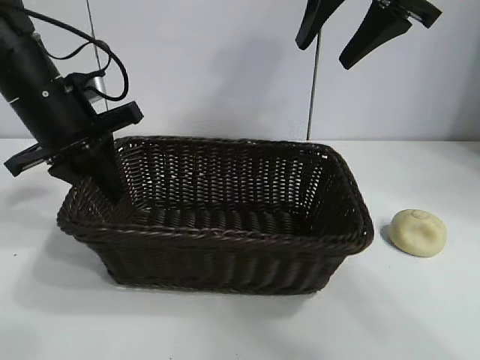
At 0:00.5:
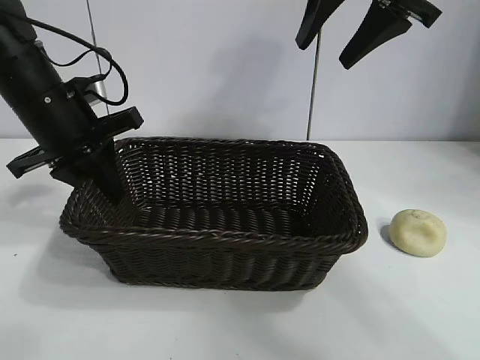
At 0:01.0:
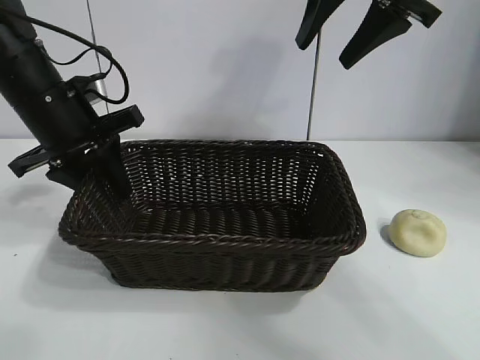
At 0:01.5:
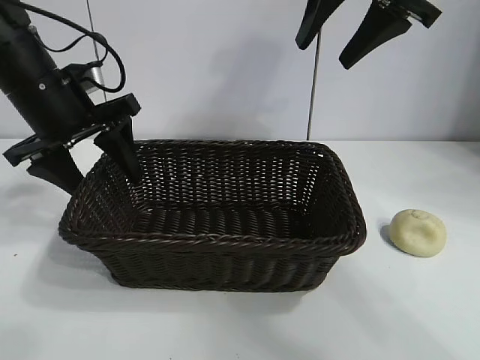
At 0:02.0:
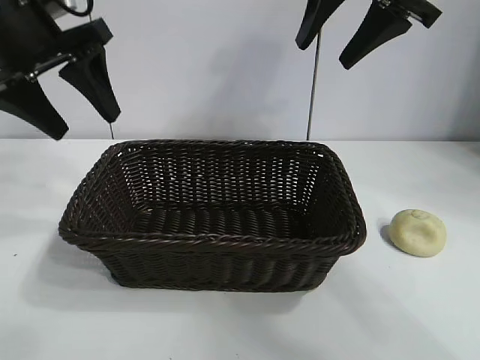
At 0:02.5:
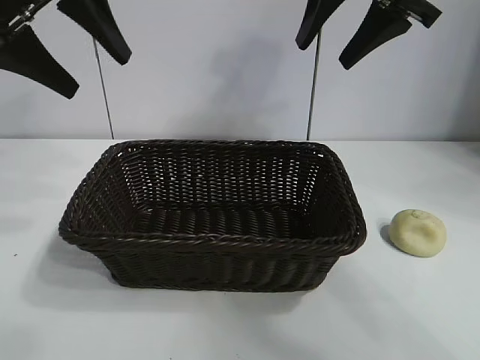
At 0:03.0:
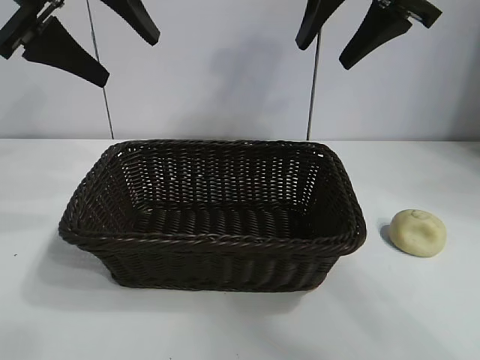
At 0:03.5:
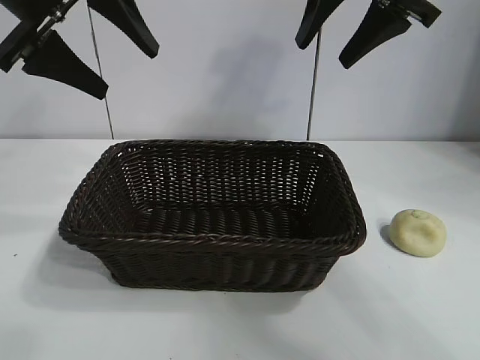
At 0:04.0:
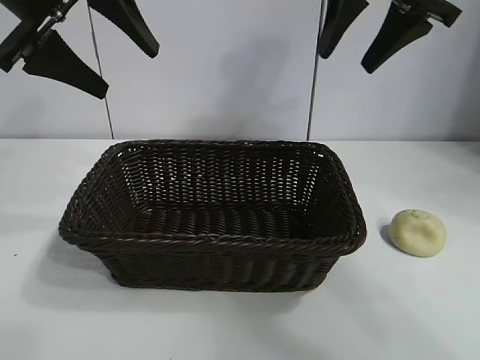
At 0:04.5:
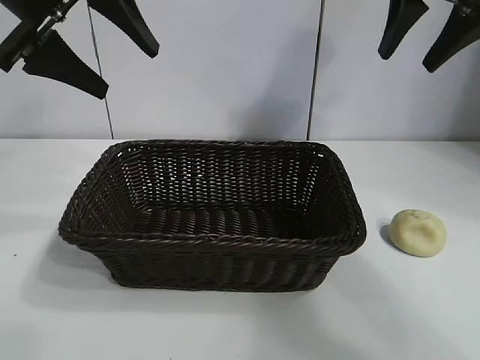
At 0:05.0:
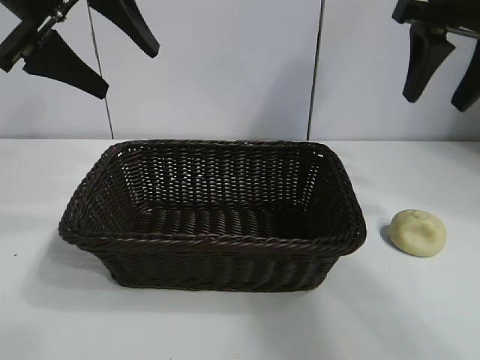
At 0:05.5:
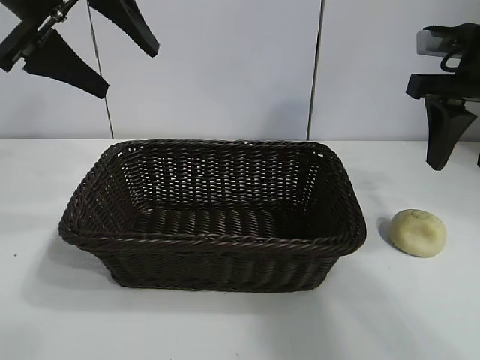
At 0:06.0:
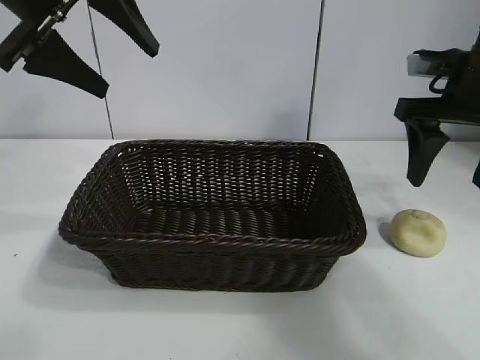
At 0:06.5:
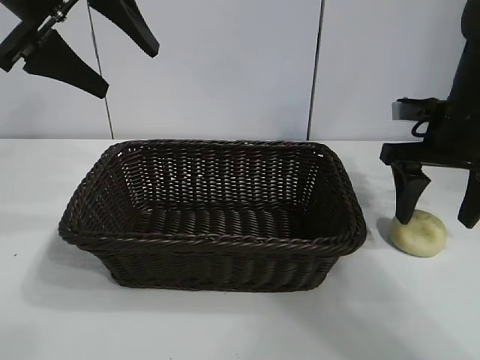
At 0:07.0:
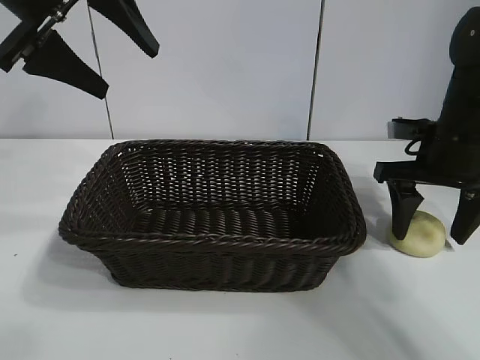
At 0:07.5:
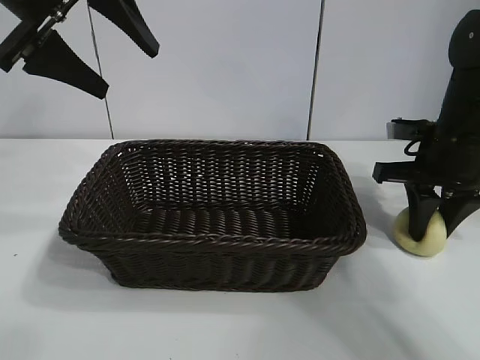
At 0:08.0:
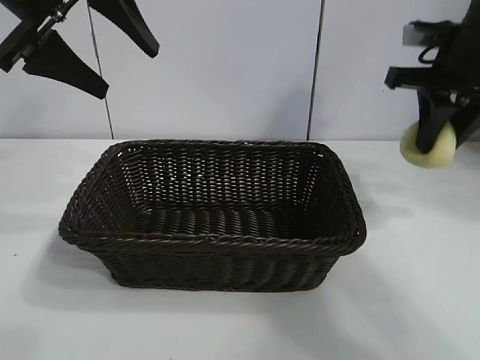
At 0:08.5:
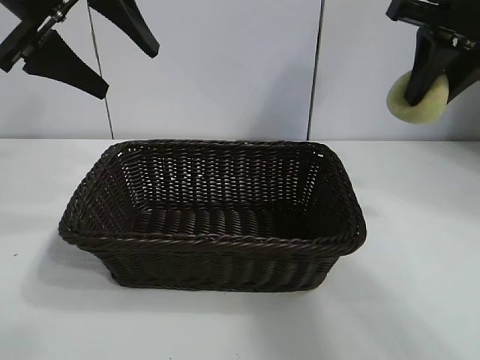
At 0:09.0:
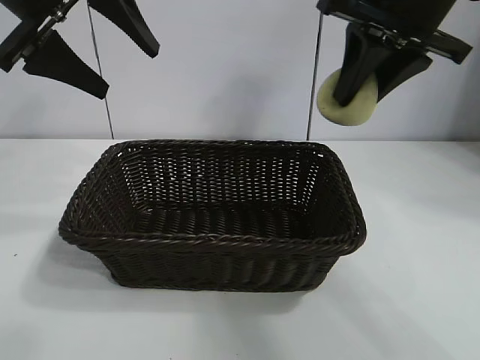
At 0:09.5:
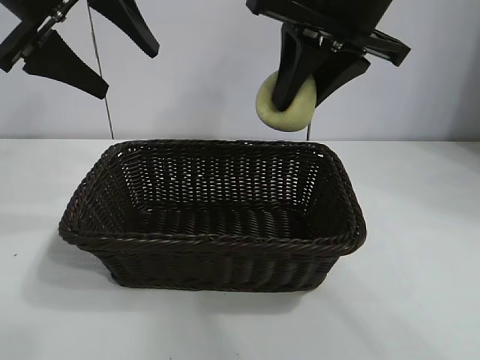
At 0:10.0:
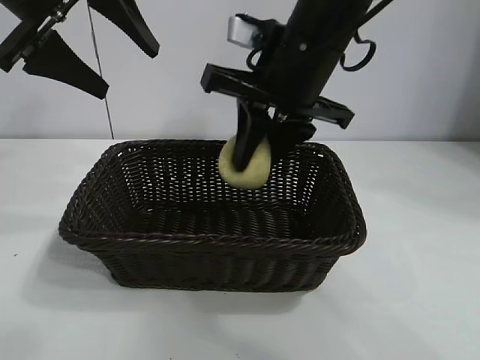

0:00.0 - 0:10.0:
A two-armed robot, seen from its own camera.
Task of the whole recording: pick up the egg yolk pastry and put it into the basket.
Step, 0:01.5 - 0:07.5: Grasp egg yolk pastry with right gripper.
